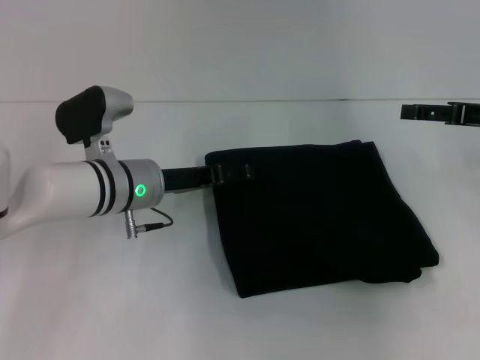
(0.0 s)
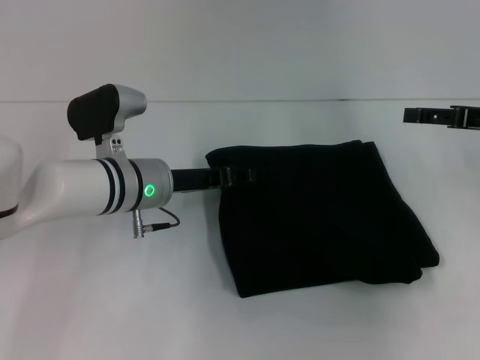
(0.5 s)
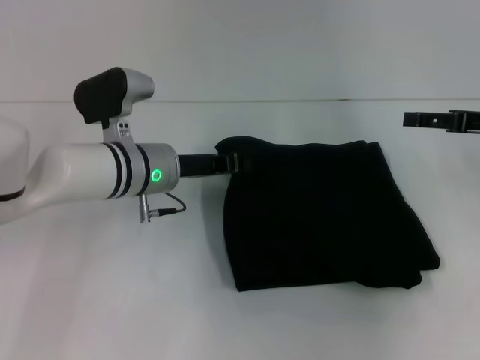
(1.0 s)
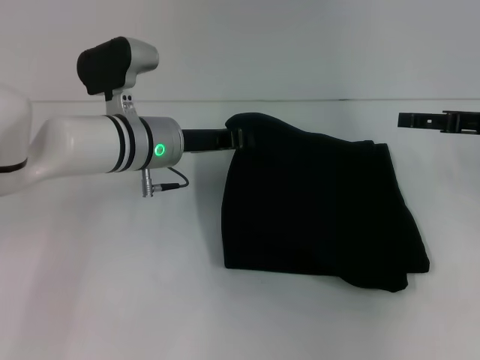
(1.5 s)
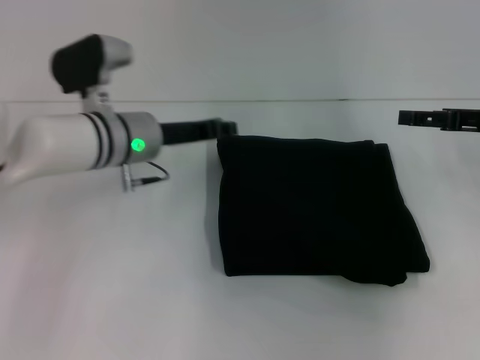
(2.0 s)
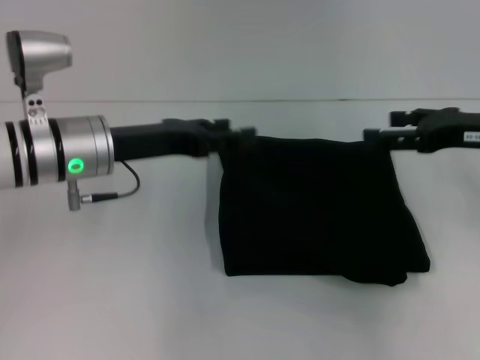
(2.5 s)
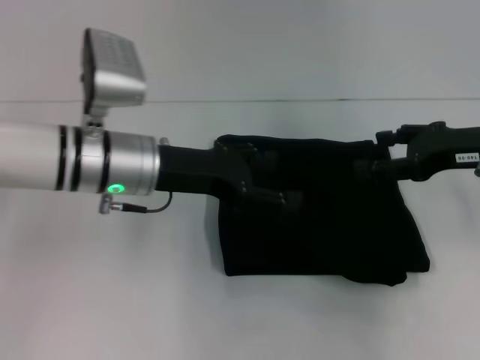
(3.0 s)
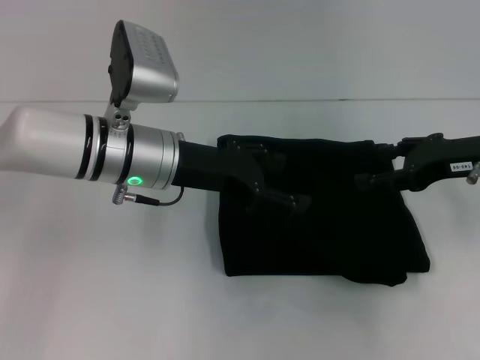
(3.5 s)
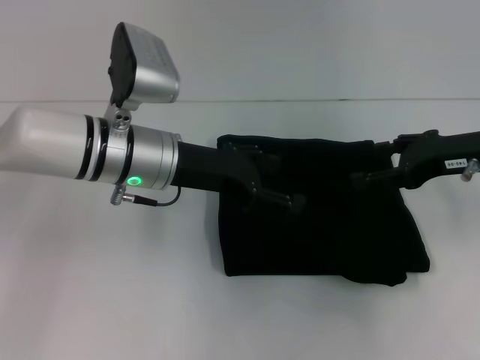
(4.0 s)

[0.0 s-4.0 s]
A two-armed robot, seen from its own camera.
0.0 to 2.0 s: The left gripper closes.
2.0 to 4.0 s: The left gripper ends up about 5 cm from where it was, and opens its fingers. Meanwhile the right gripper moves approximately 5 cm.

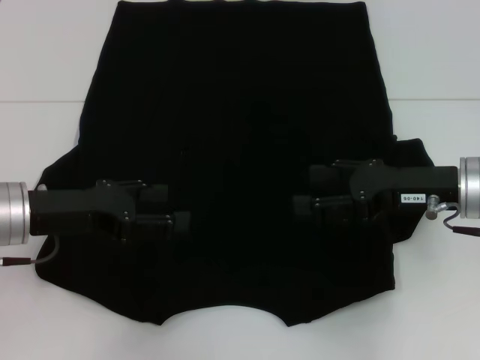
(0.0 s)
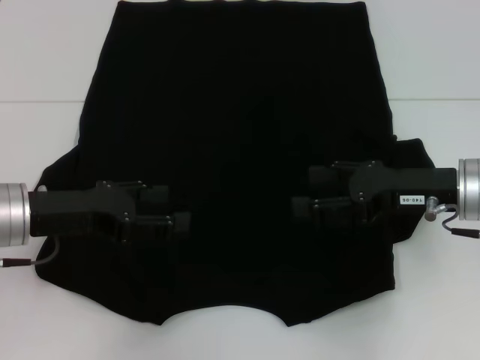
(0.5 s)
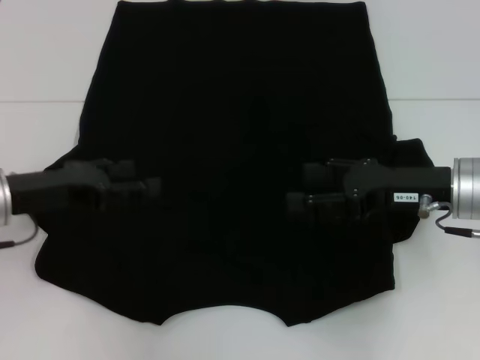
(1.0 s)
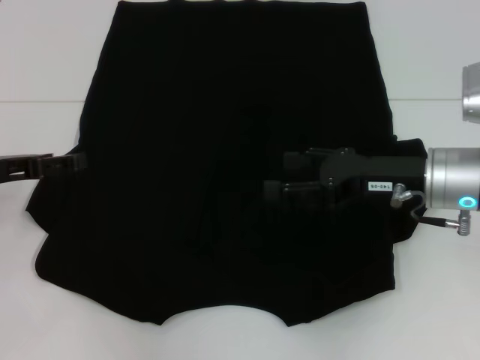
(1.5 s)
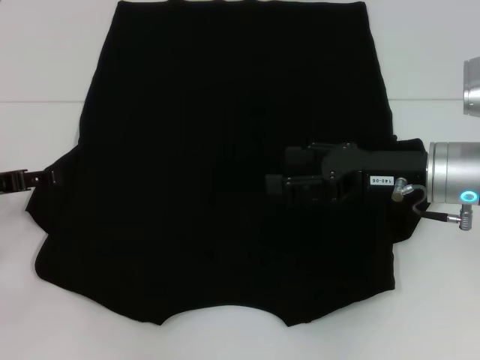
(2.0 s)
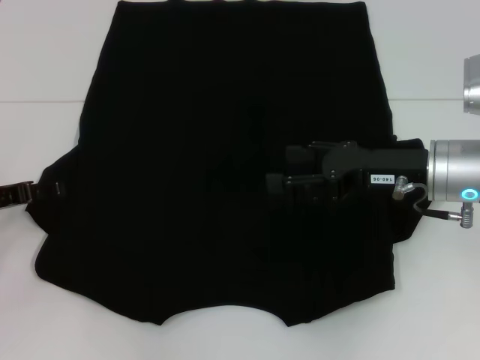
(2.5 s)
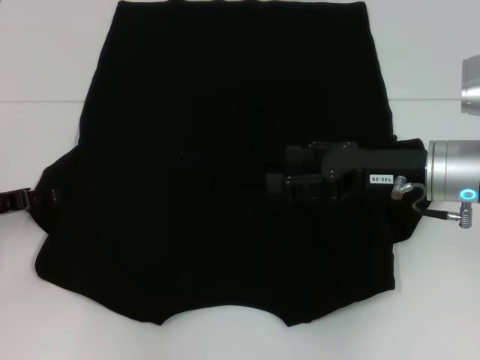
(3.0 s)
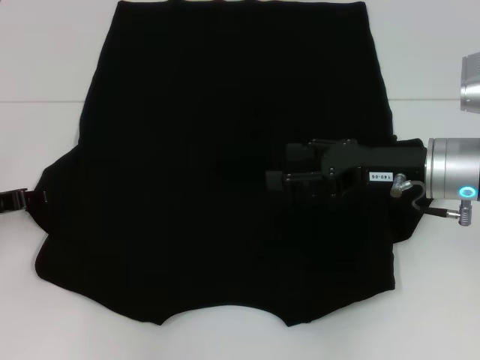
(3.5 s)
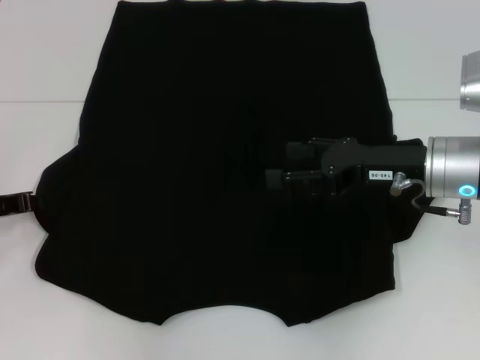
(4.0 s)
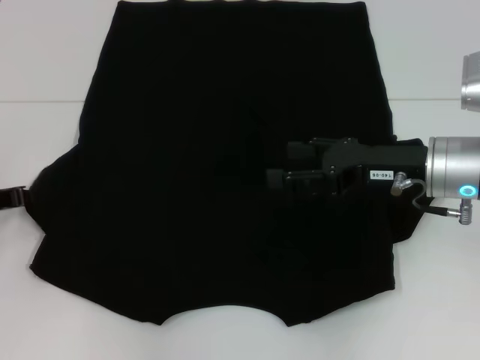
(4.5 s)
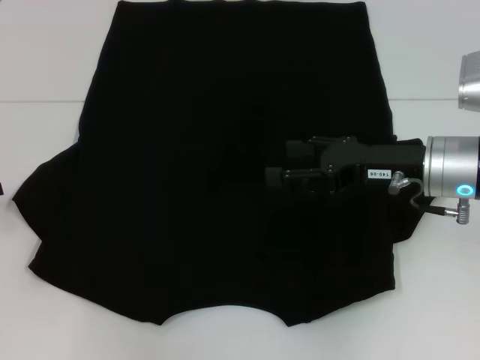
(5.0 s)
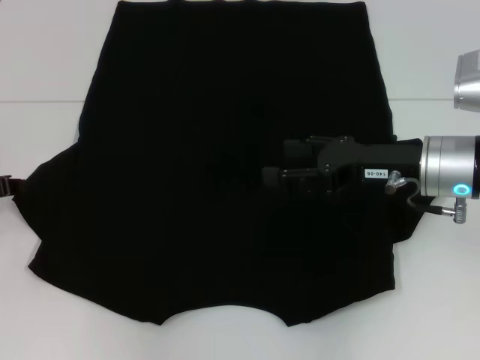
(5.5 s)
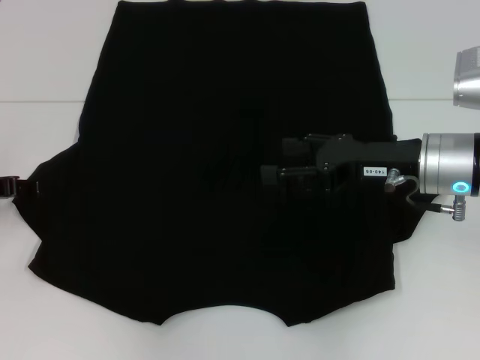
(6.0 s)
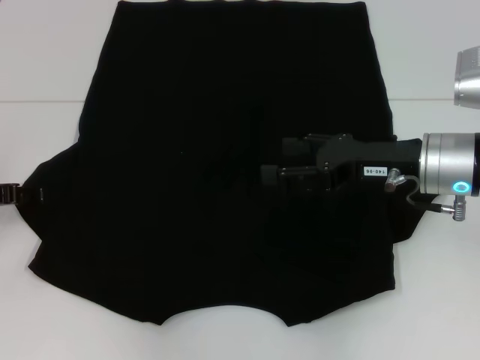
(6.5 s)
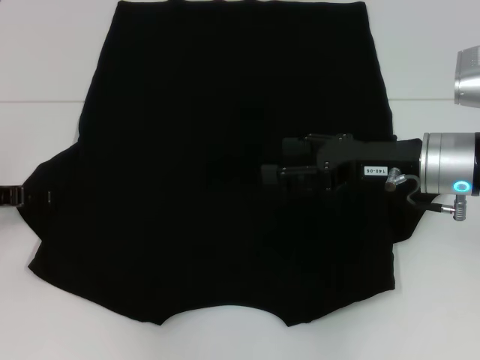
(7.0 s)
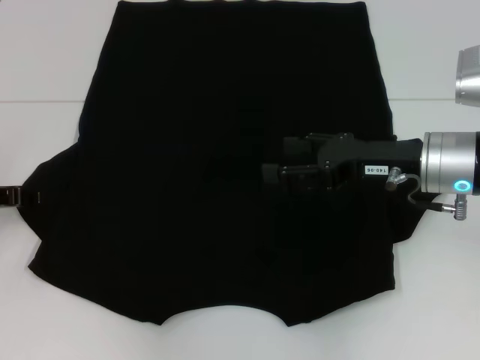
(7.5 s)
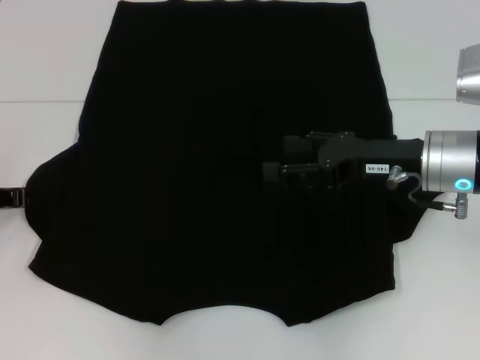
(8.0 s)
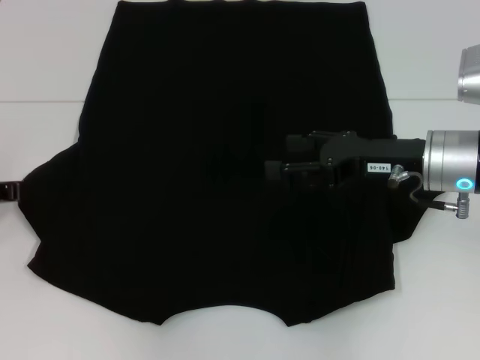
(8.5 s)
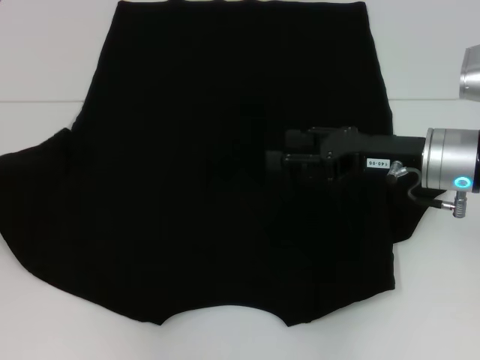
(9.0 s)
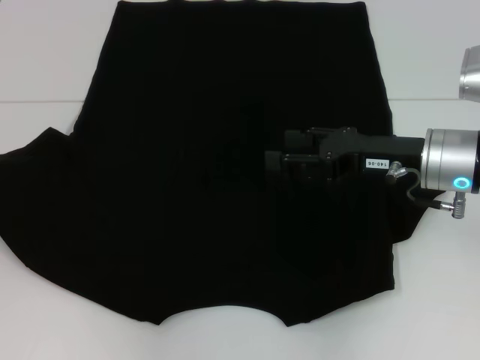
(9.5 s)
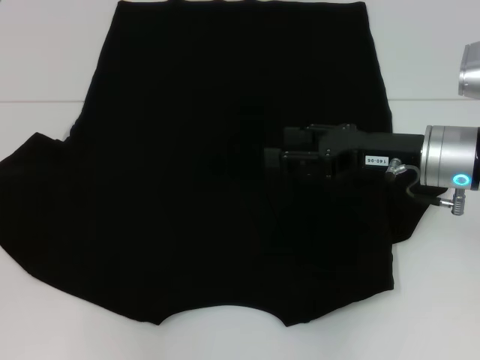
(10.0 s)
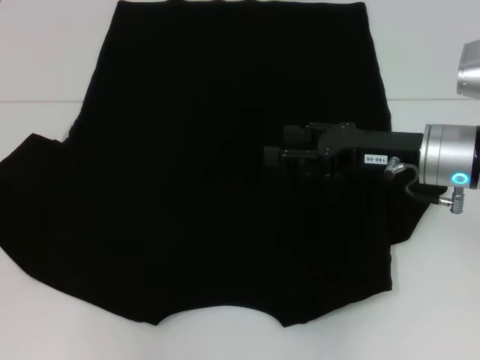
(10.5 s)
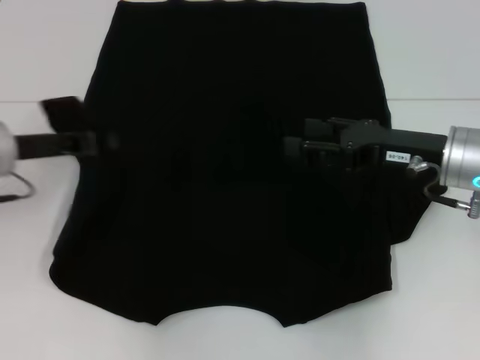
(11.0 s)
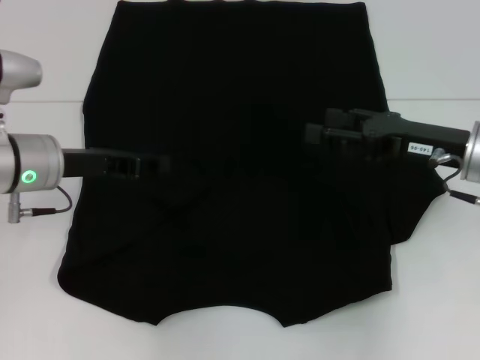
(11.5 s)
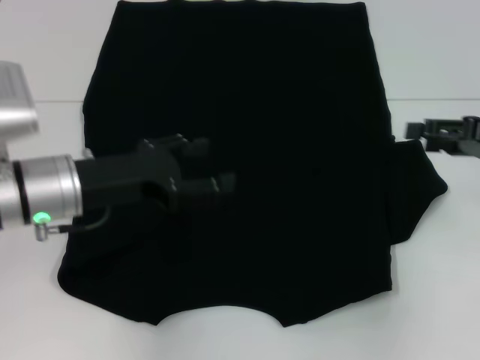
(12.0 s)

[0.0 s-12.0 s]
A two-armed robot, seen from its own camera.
Step, 0.0 to 11.5 s: Fold the bottom left sleeve with your left hand.
0.0 to 2.0 s: The left gripper moves to the left, some 10 cm.
2.0 to 4.0 s: The left gripper closes its fingers.
4.0 to 6.0 s: There are only small adjustments of the grippers.
8.0 to 10.0 s: The left gripper travels to the left by approximately 5 cm.
10.0 to 12.0 s: The grippers both shift to the right by approximately 15 cm. The left gripper opens.

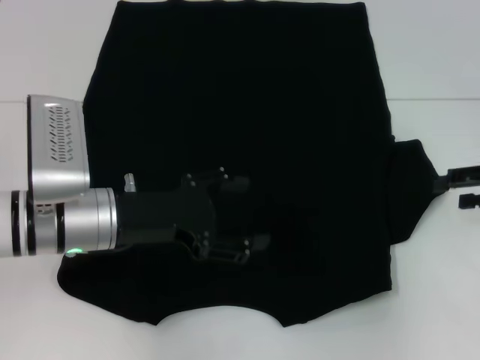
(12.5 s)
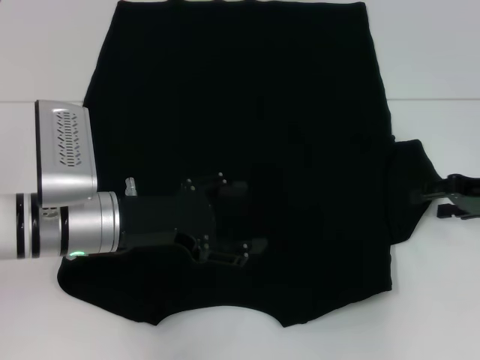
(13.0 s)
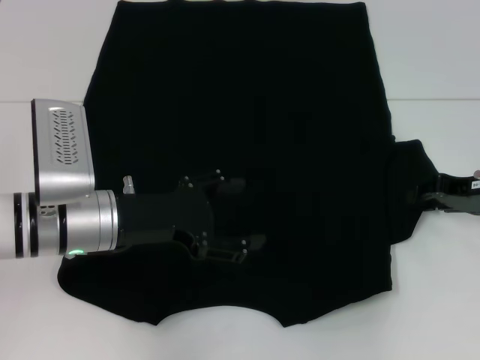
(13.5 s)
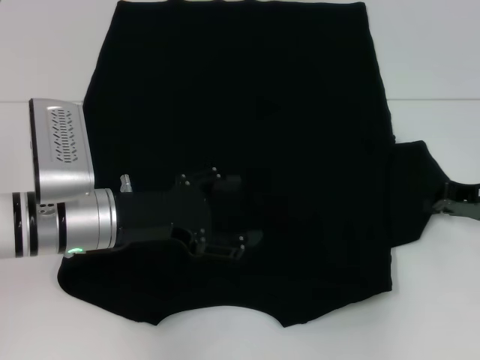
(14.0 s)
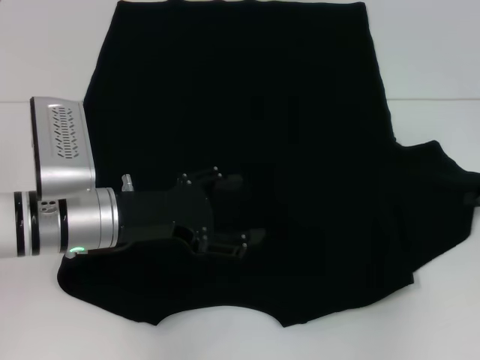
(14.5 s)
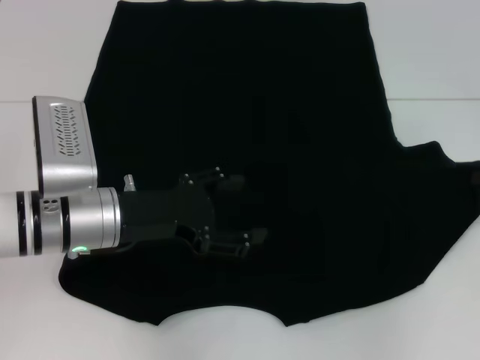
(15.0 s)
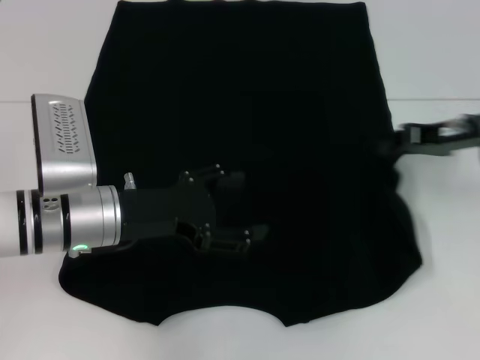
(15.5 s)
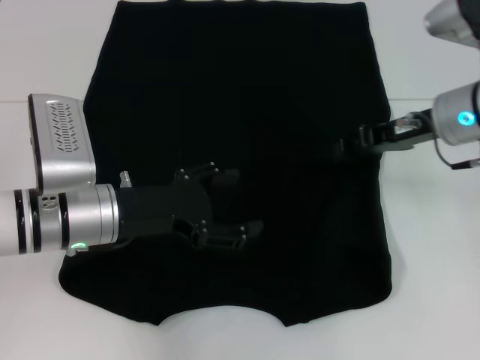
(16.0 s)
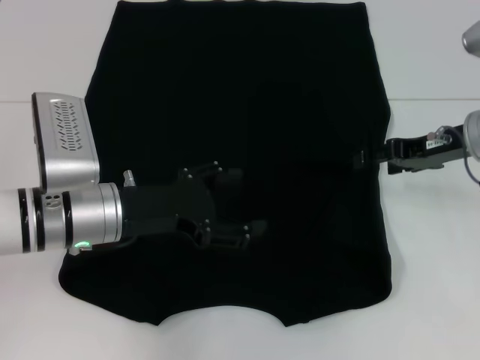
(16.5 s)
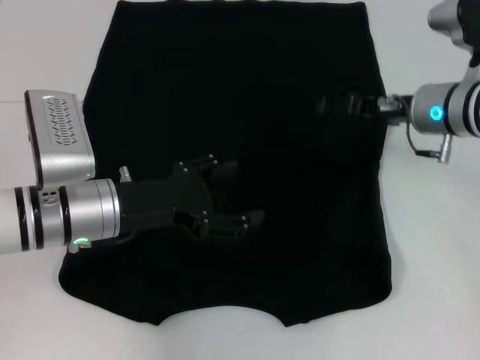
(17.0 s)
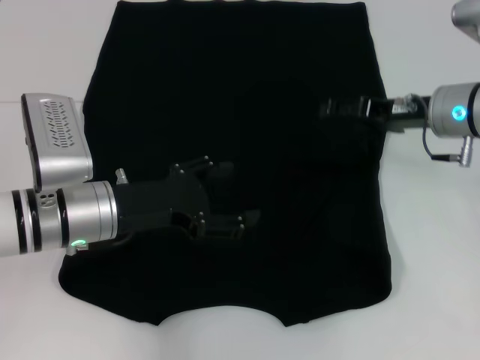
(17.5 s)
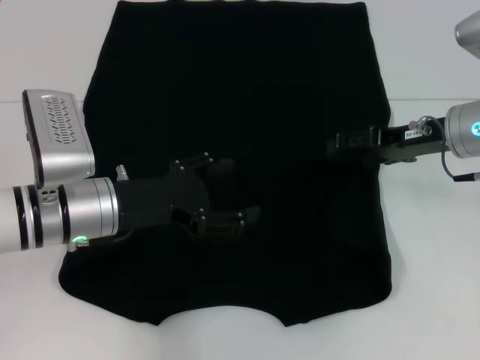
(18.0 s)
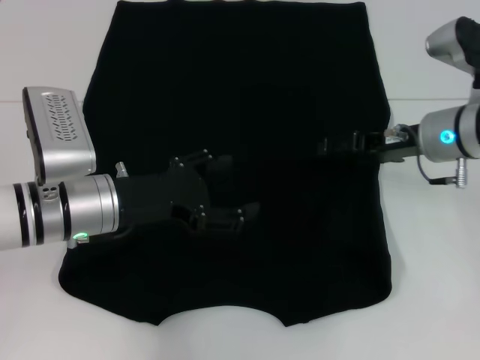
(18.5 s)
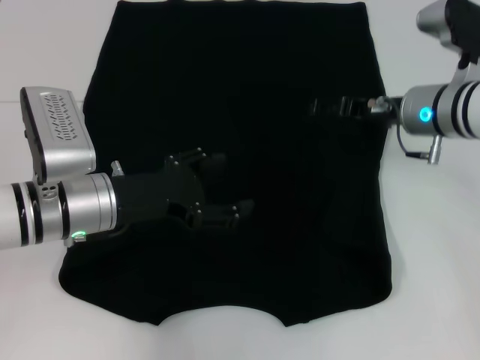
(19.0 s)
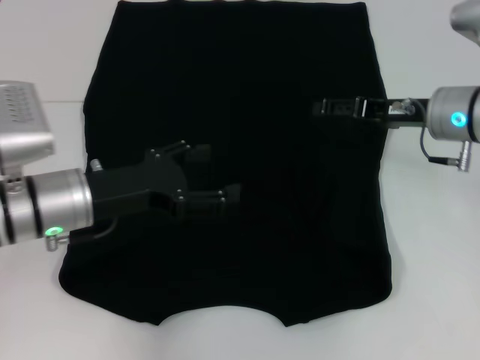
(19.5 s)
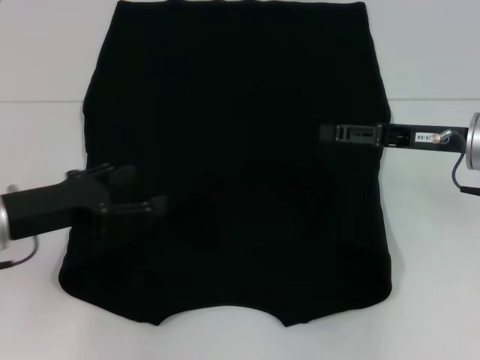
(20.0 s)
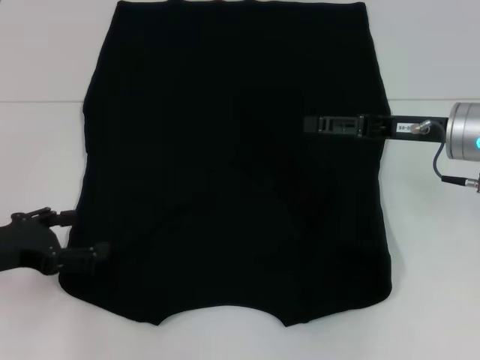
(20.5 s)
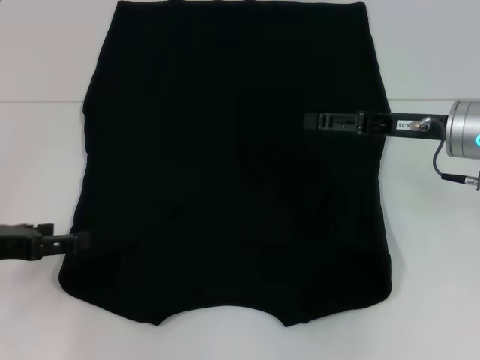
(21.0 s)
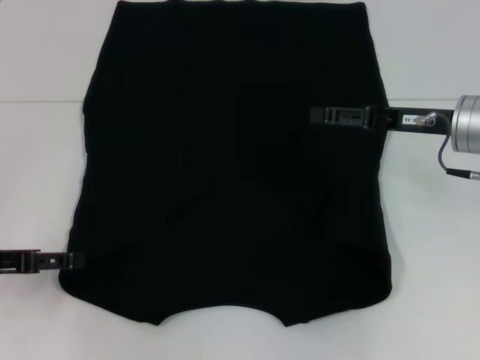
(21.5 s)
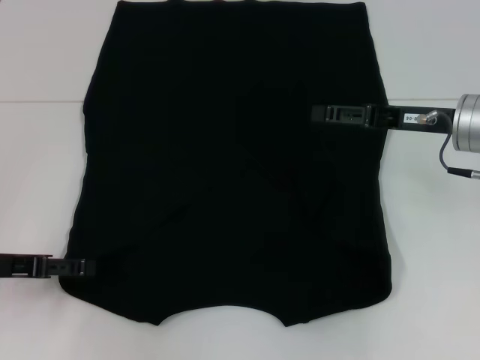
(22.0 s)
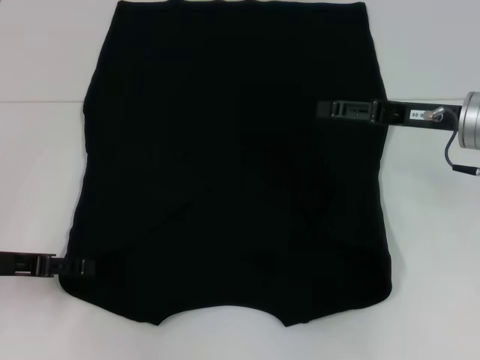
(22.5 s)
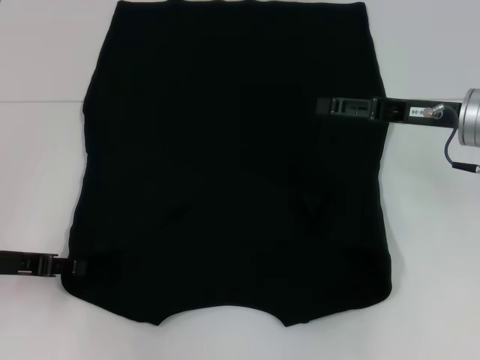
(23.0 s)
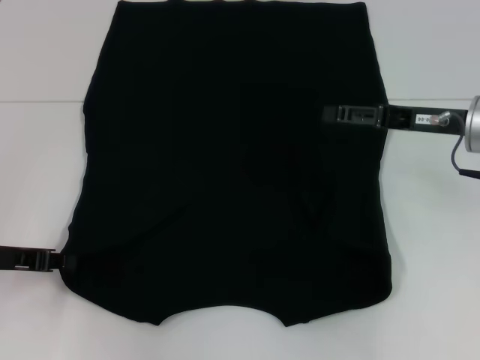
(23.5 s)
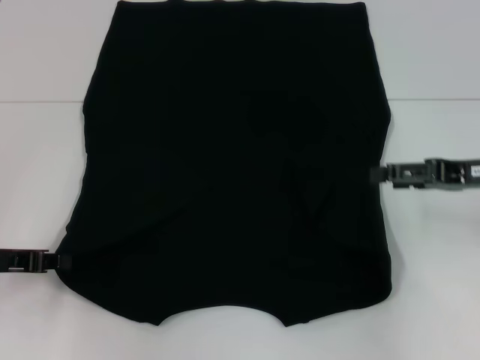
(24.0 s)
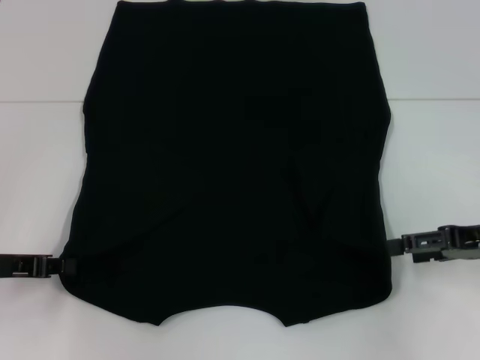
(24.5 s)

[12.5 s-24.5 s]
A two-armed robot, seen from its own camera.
Step, 12.5 to 16.0 s: Fold the bottom right sleeve with your right hand.
Step, 16.5 to 23.5 s: Grab the bottom left corner with your left hand.
12.5 to 14.5 s: The right gripper closes its fingers.
14.5 to 16.5 s: The right gripper is displaced to the left by some 10 cm, and opens up.
18.5 to 20.5 s: The left gripper is displaced to the left and backward by about 15 cm.
22.5 to 24.5 s: The left gripper closes; the right gripper is displaced to the right and backward by approximately 10 cm.
